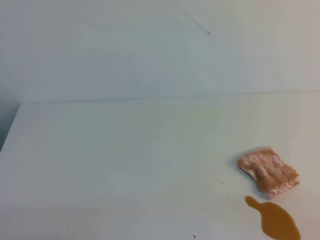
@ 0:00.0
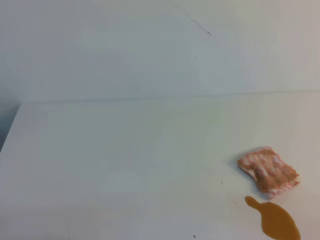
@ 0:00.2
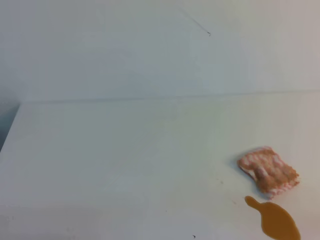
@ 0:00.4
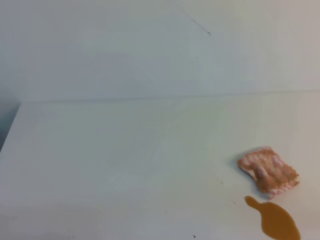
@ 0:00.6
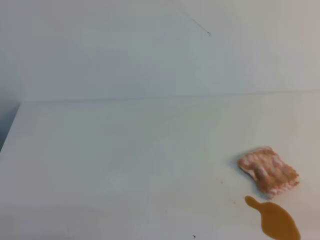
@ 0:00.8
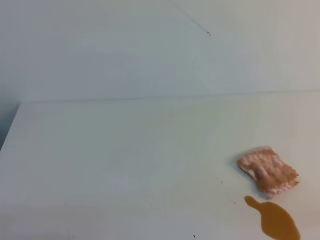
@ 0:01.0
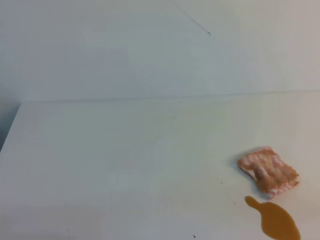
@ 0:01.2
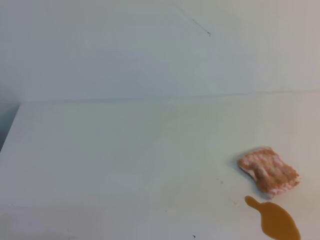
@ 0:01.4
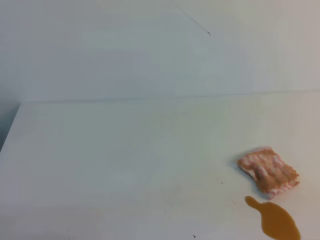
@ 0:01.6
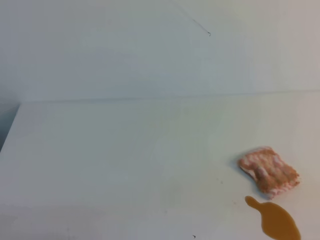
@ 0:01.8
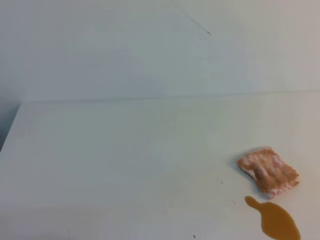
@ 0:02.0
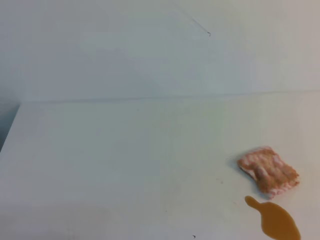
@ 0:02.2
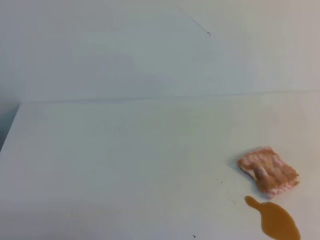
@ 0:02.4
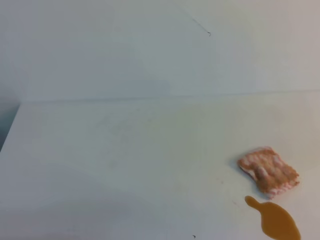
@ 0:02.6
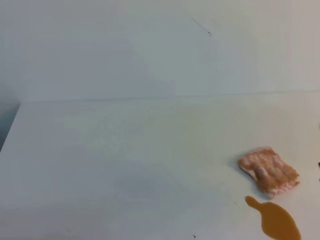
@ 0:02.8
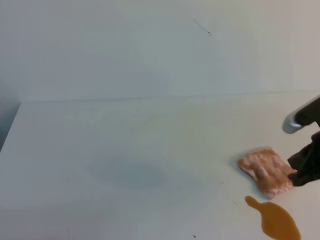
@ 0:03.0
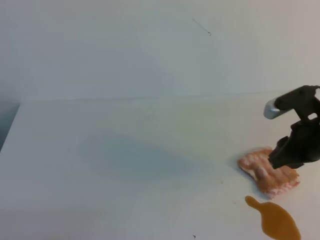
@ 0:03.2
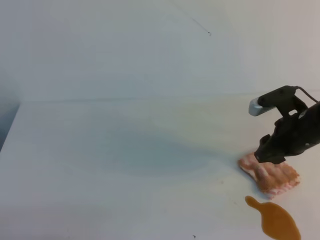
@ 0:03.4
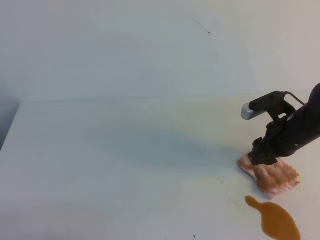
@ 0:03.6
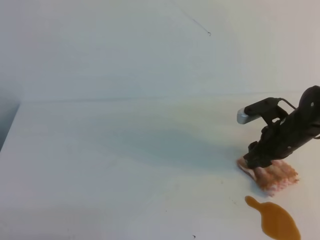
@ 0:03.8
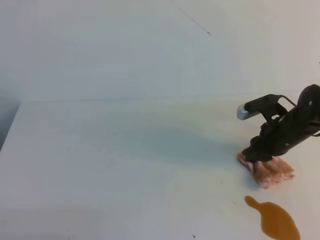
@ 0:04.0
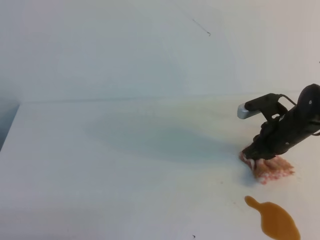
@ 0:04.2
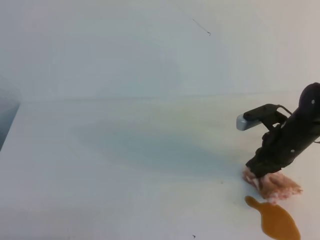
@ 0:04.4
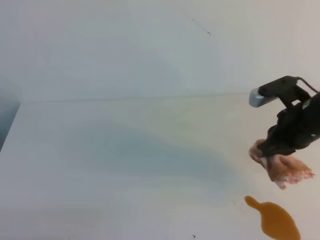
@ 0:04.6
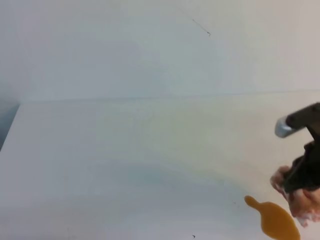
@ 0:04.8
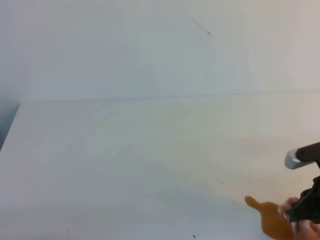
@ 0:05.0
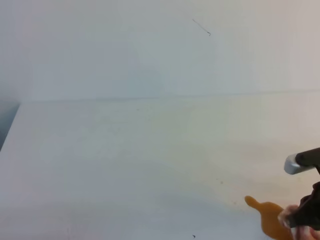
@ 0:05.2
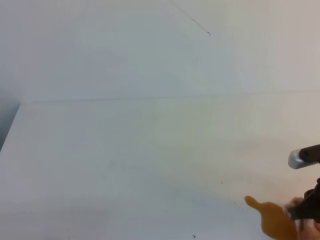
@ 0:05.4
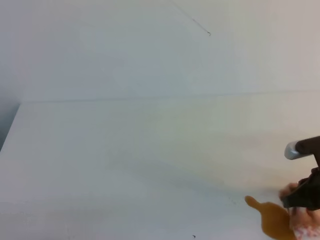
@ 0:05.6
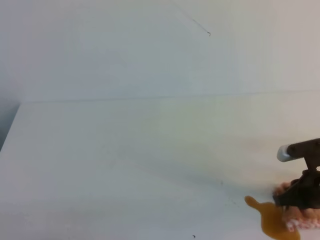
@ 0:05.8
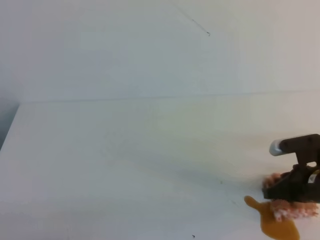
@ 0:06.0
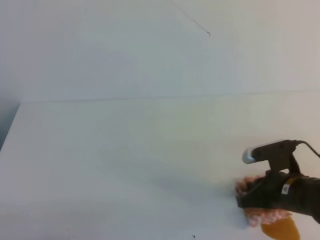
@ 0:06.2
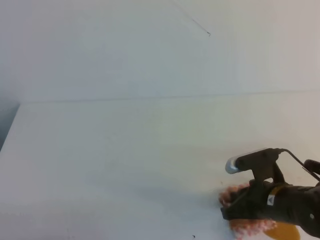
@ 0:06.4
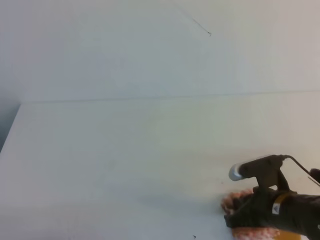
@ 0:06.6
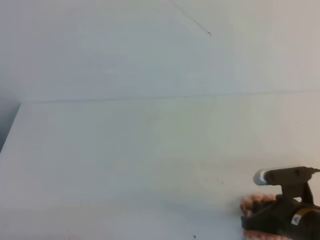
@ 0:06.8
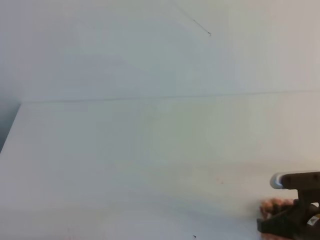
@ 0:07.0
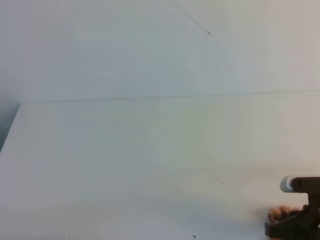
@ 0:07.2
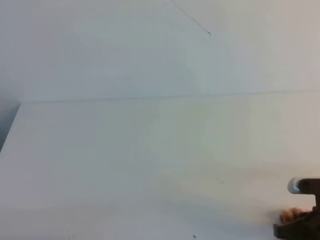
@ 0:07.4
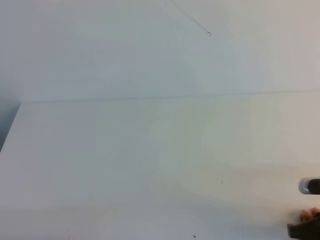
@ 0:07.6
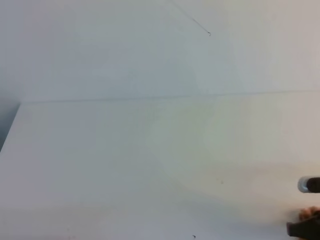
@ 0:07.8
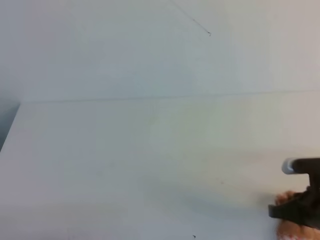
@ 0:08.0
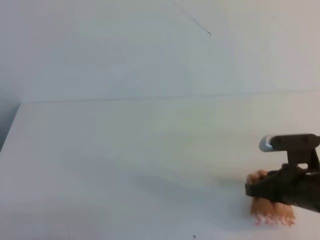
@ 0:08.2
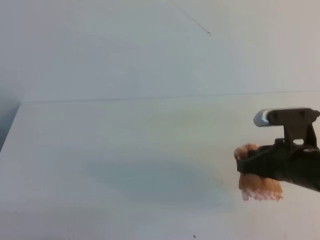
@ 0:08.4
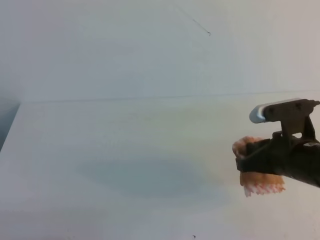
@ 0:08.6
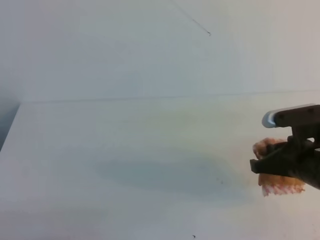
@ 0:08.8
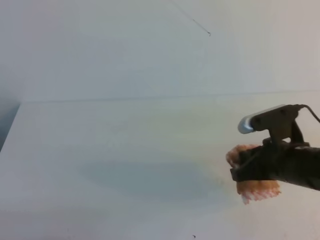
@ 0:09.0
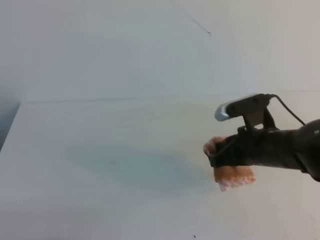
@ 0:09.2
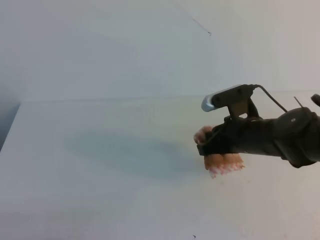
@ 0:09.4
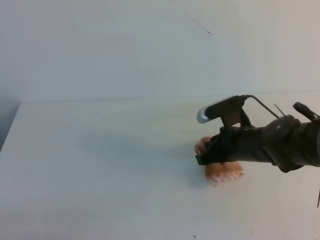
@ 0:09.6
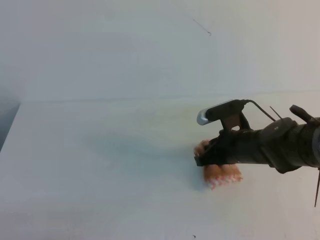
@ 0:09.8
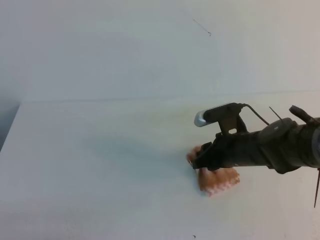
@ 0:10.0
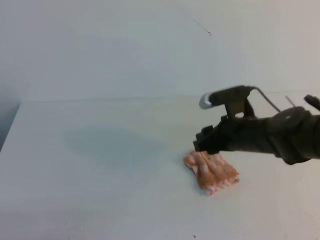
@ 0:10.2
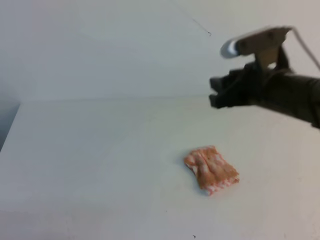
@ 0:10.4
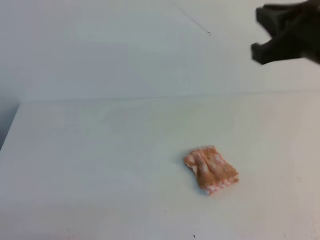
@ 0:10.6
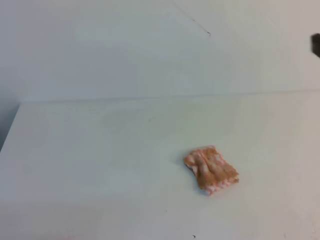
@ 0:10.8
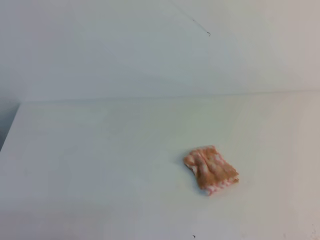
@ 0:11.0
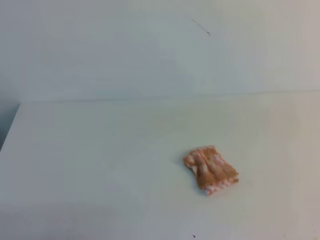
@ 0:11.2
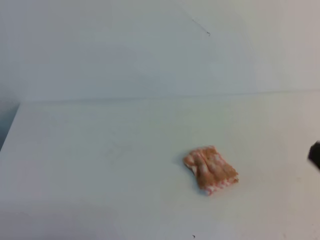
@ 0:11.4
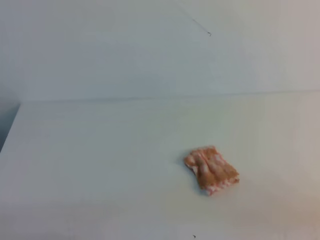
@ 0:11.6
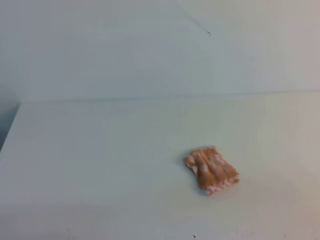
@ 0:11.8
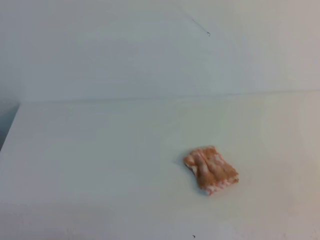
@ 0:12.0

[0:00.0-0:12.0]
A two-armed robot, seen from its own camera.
0:01.6 to 0:03.0: The right gripper is displaced forward by some 20 cm.
0:03.0 to 0:04.4: The right gripper moves forward and downward, about 15 cm, and opens and closes again.
0:04.4 to 0:06.0: The right gripper travels backward by some 10 cm.
0:06.0 to 0:07.6: The right gripper travels backward by approximately 10 cm.
0:07.6 to 0:09.0: The right gripper is displaced forward, upward and to the left by some 15 cm.
0:09.0 to 0:10.4: The right gripper travels upward by approximately 10 cm, and opens.
0:10.4 to 0:12.0: The right gripper goes approximately 25 cm backward and to the right, and closes.

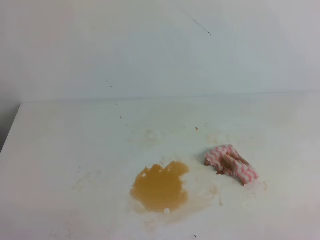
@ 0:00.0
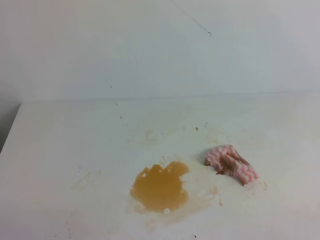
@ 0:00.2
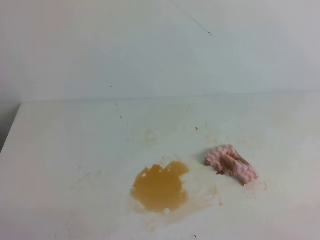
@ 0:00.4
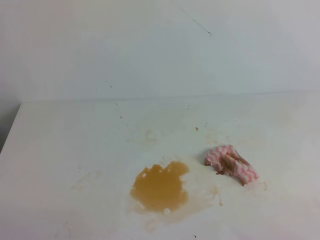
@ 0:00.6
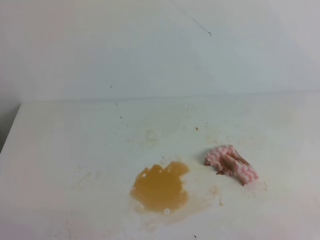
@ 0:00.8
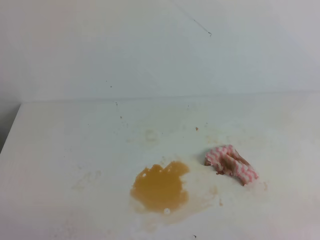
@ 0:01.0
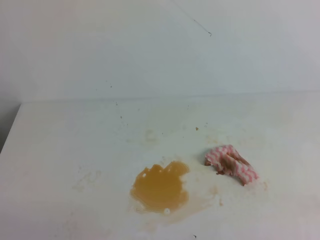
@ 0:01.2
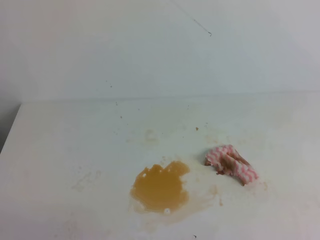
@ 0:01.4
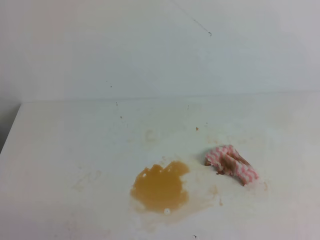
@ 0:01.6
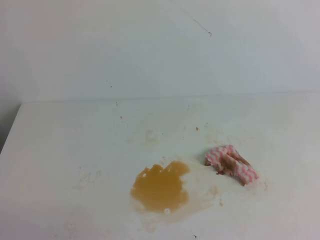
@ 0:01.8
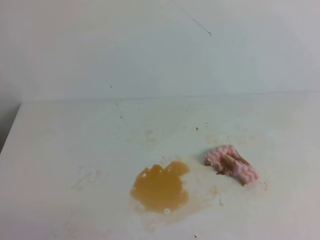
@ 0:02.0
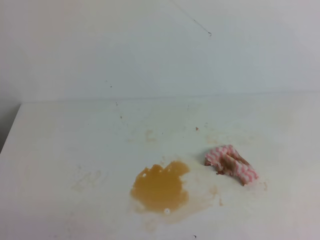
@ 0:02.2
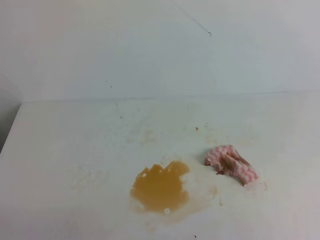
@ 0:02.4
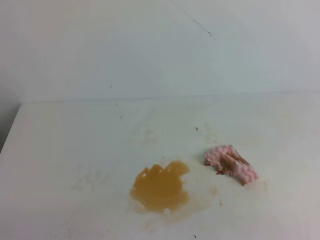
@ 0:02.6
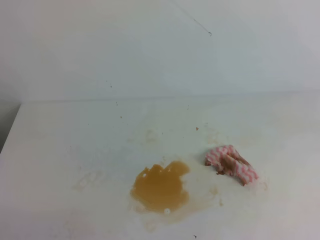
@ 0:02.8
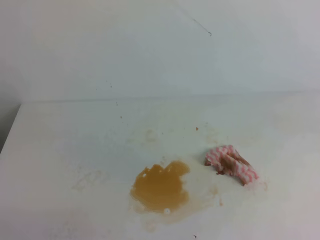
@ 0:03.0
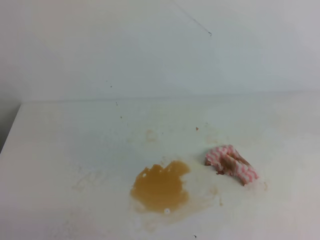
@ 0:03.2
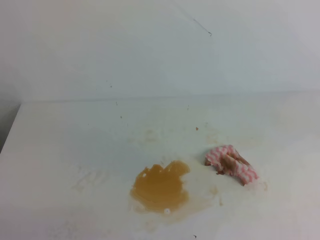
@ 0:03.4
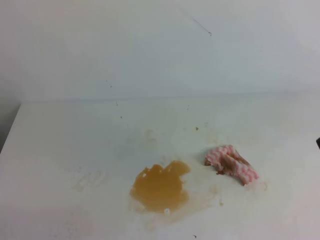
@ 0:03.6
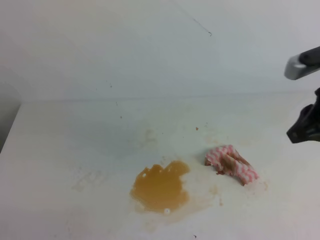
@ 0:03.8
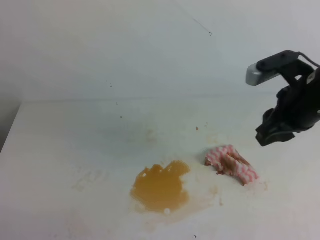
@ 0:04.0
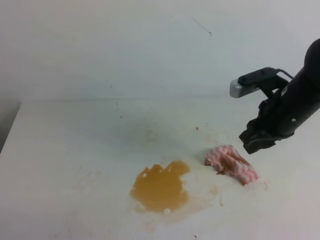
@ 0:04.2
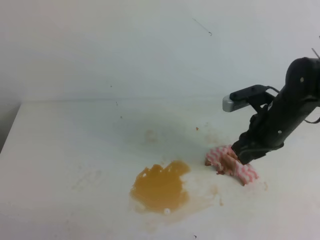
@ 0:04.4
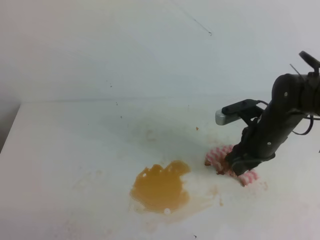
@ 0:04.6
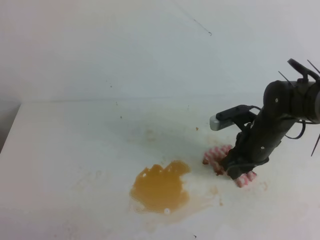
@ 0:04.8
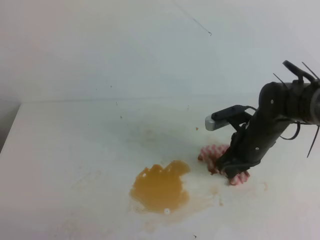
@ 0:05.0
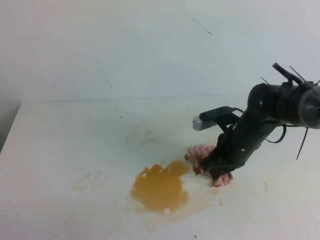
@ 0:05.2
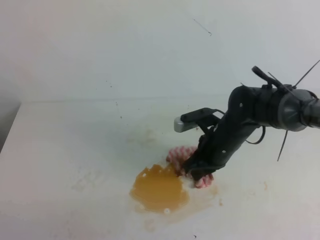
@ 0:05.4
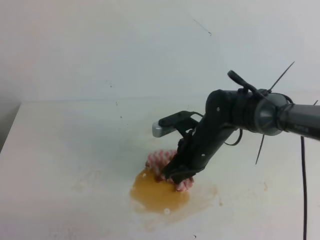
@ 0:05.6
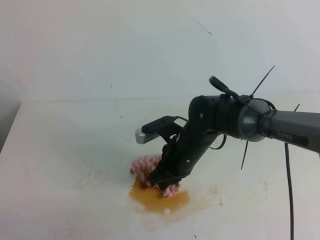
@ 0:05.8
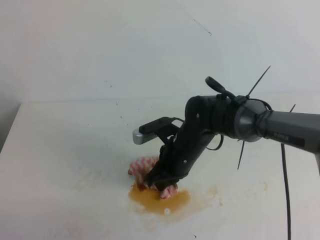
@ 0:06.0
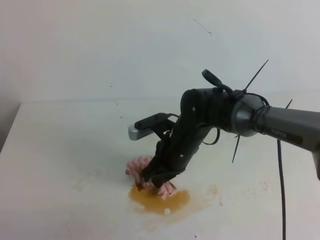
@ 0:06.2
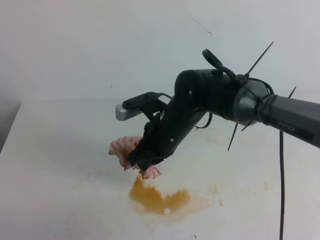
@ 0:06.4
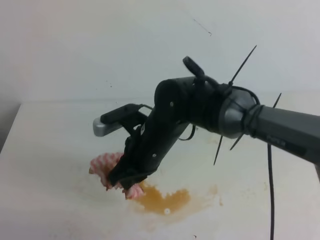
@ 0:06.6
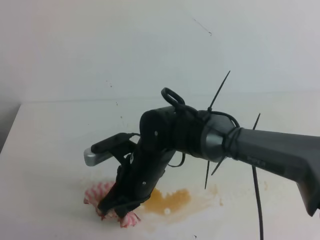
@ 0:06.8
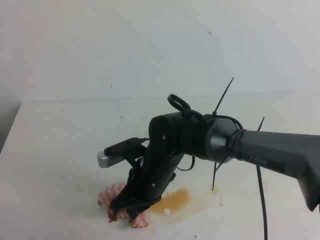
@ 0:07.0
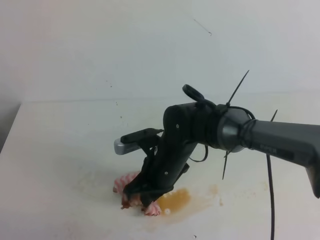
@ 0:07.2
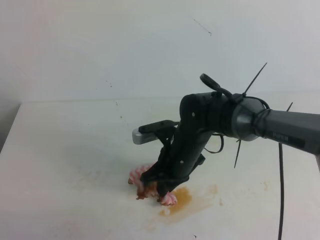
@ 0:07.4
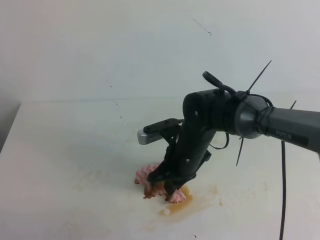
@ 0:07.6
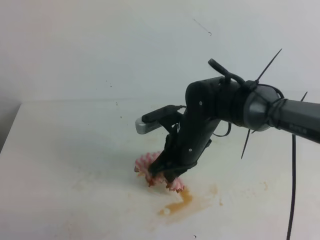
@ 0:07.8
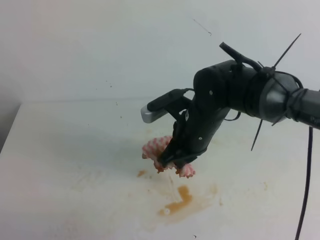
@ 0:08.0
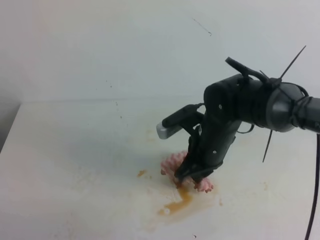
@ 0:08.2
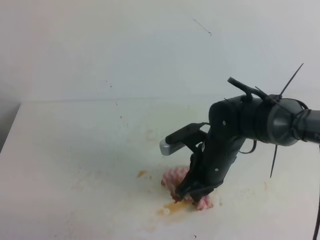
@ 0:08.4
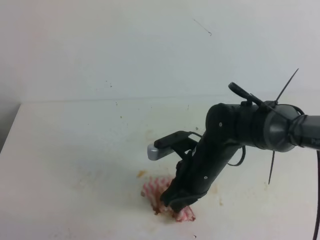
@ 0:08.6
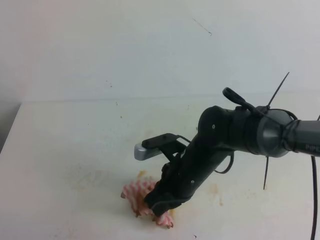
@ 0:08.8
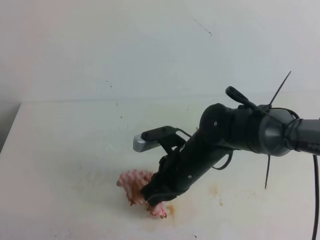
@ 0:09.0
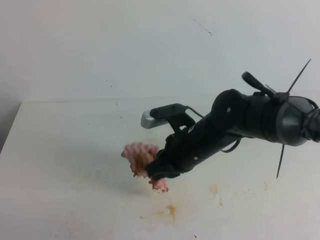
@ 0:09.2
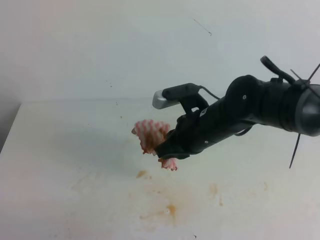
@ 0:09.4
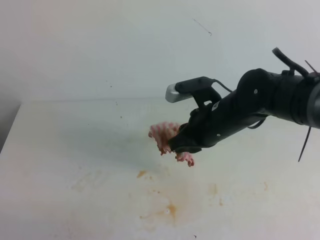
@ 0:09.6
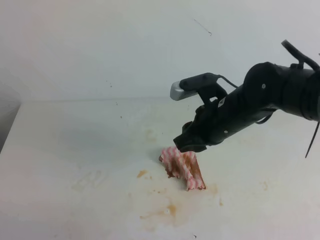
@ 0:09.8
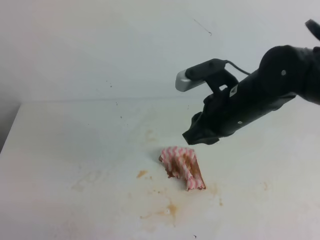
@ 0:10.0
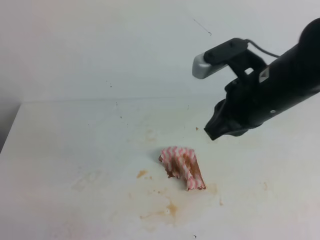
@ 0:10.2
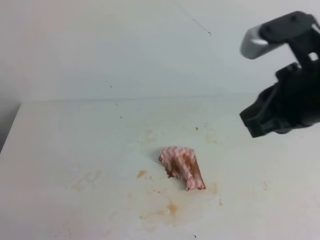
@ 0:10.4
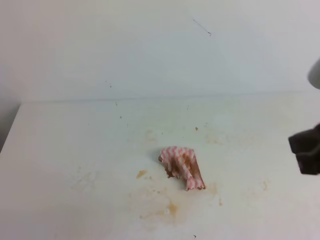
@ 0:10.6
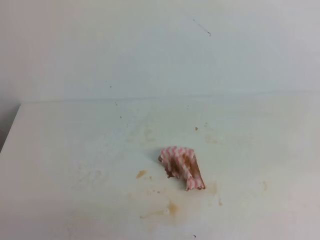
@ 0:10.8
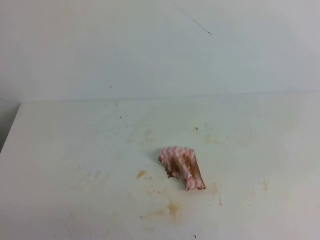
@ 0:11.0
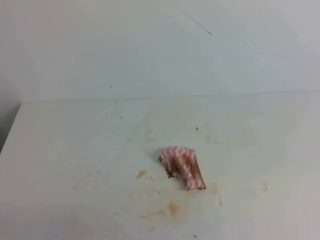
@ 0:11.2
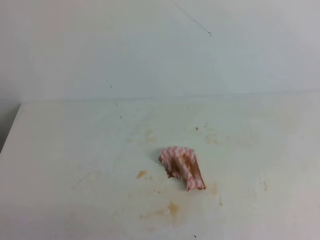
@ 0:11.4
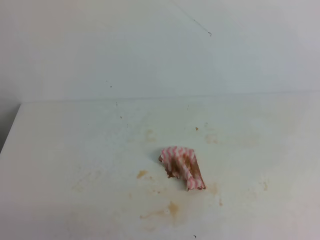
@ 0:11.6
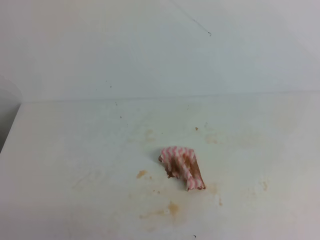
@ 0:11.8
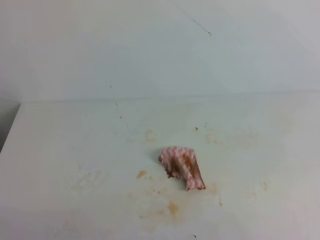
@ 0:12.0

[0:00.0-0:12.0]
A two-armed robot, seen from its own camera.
0:03.0 to 0:04.4: The right gripper heads forward, downward and to the left, covering approximately 25 cm, and opens.
0:04.4 to 0:06.0: The right gripper goes some 15 cm to the left, and closes up.
0:07.6 to 0:09.0: The grippers stay close to where they were, moving slightly.
0:09.0 to 0:10.4: The right gripper heads upward and to the right, covering approximately 25 cm, and opens, then closes once more.
0:10.4 to 0:12.0: The right gripper travels to the right and backward by approximately 20 cm.
